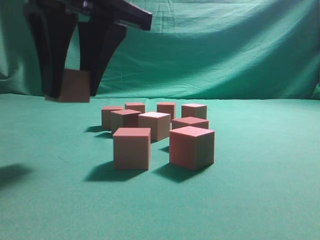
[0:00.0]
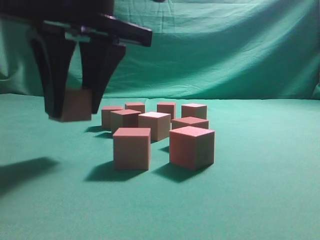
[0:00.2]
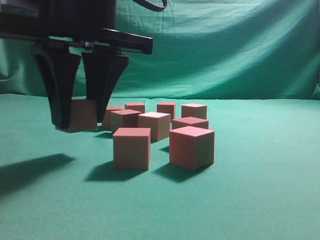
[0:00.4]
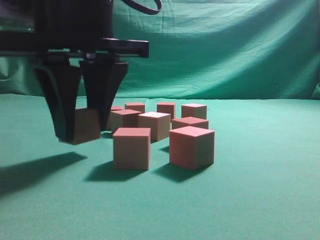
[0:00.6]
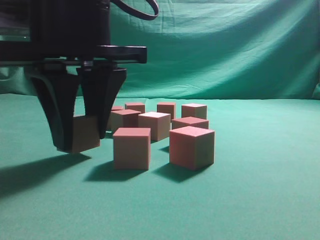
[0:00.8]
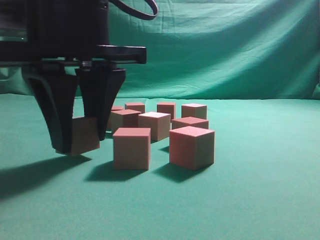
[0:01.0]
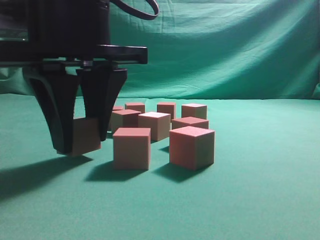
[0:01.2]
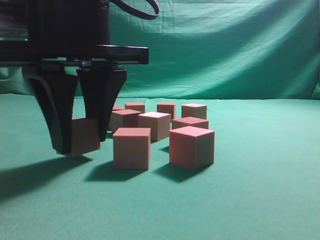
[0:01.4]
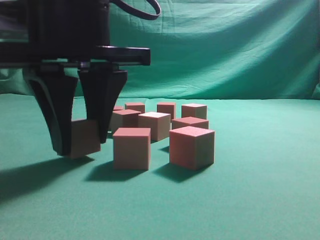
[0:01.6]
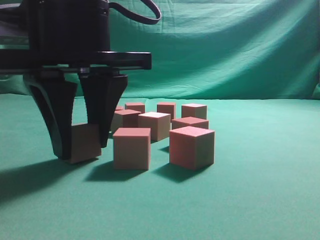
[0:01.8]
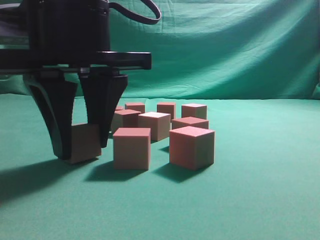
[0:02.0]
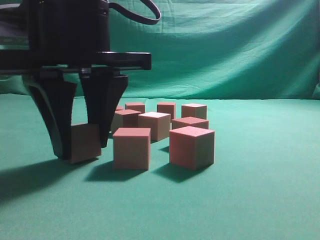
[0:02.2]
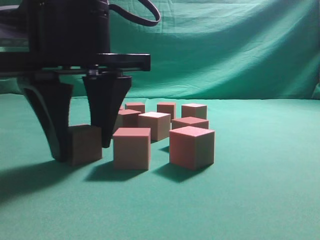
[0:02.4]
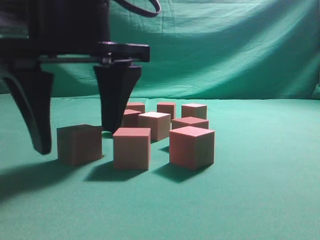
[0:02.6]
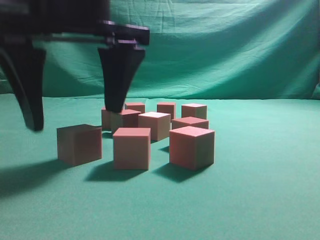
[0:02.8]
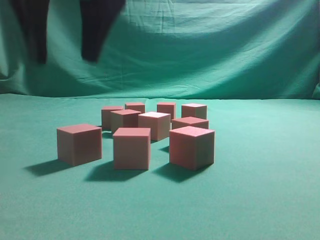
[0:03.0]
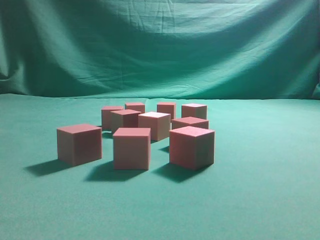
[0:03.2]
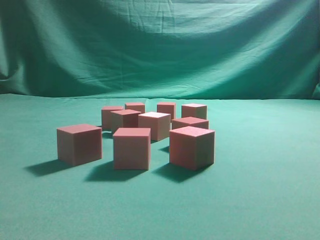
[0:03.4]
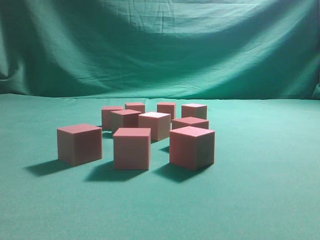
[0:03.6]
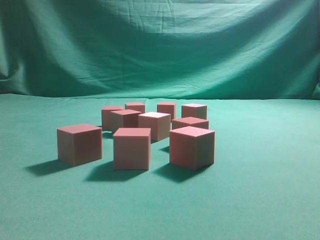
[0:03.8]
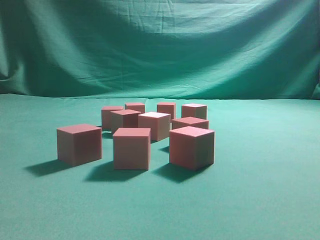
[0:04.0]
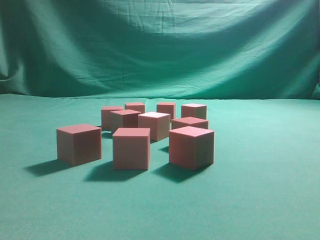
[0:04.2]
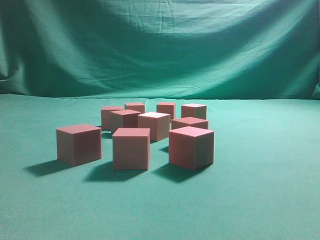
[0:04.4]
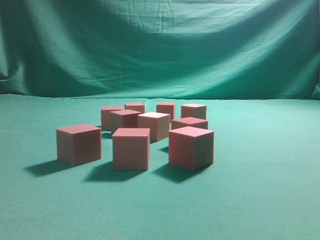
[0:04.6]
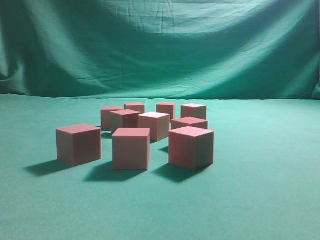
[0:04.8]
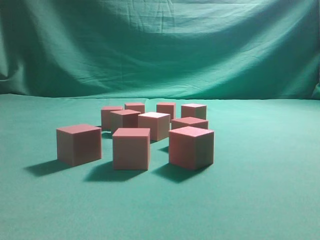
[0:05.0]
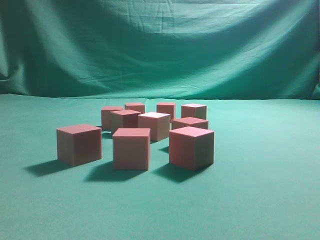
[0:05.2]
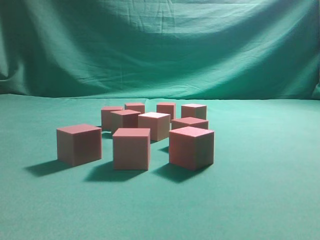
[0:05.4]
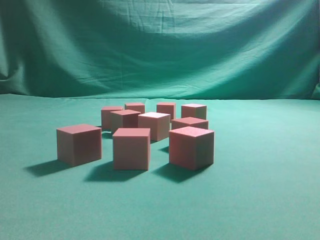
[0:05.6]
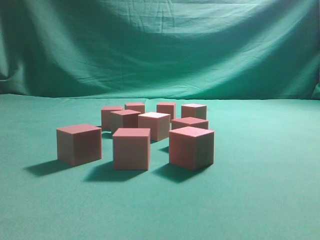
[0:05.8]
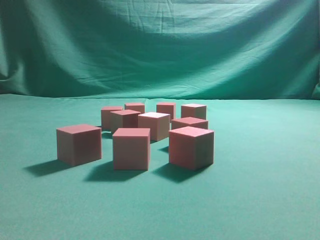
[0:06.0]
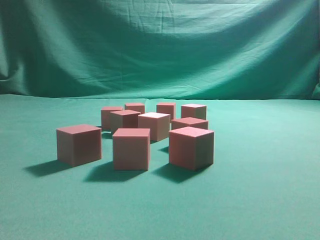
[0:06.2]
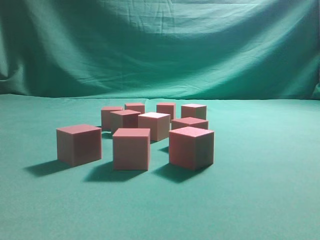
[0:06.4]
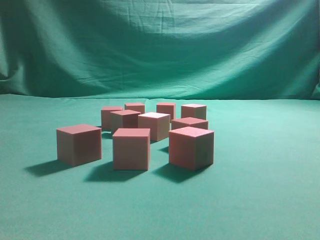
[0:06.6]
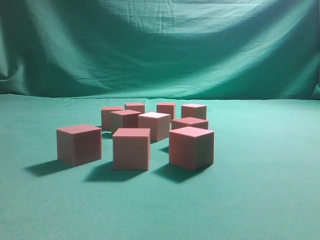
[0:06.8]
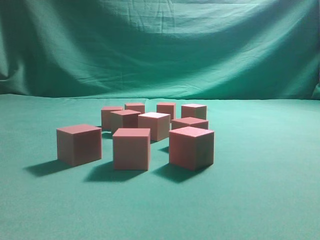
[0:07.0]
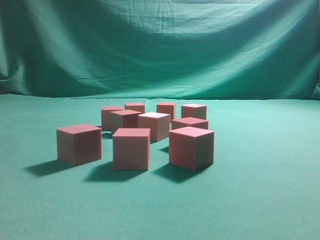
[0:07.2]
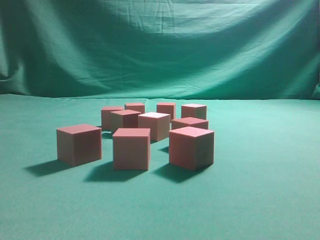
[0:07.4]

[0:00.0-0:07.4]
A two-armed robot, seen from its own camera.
Task of the whole recording: pick up the multiple cubes in two columns one by one and place them in another position on the table.
Step, 0:00.0 to 0:03.0: Place the block at the correct position to assemble the letter S.
0:00.0 to 0:01.4: The grippers stay close to where they were, moving slightly.
0:01.4 to 0:03.0: The right gripper heads upward, covering roughly 5 cm.
